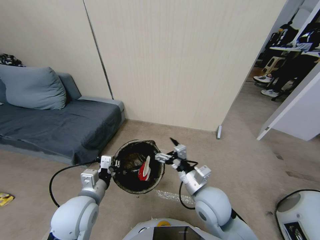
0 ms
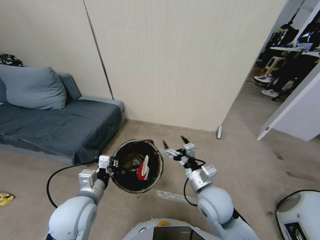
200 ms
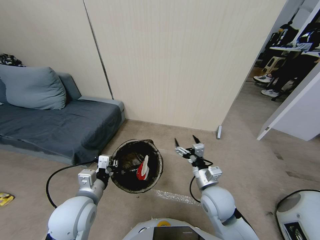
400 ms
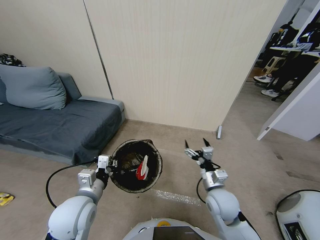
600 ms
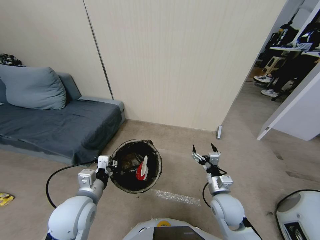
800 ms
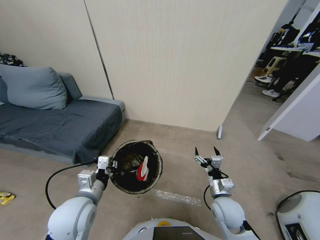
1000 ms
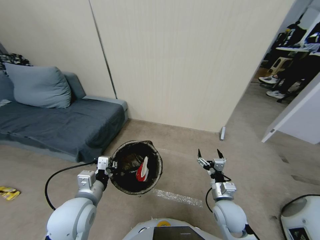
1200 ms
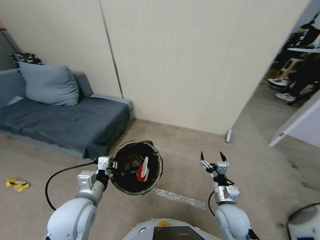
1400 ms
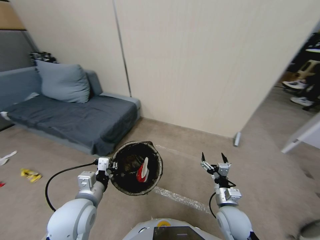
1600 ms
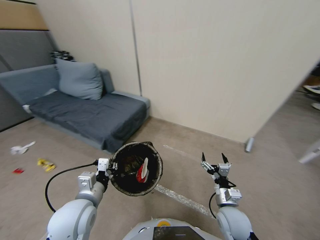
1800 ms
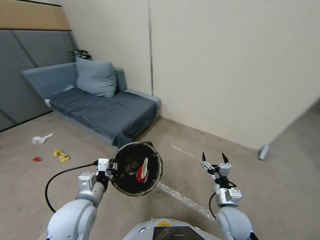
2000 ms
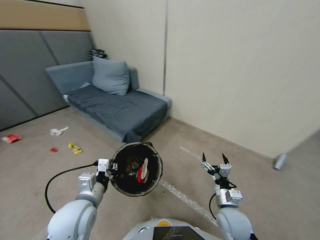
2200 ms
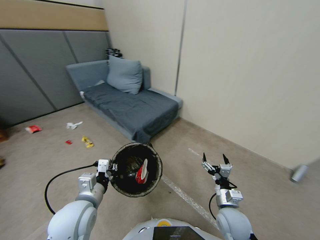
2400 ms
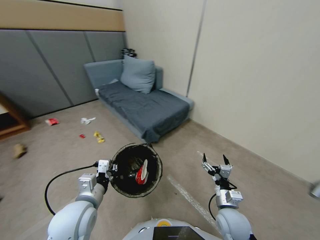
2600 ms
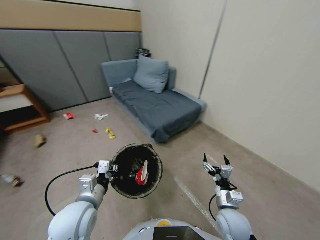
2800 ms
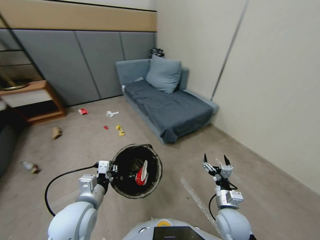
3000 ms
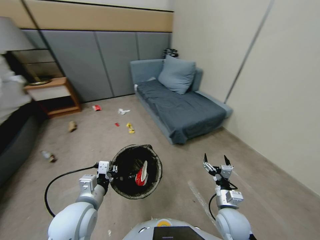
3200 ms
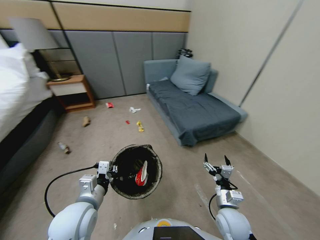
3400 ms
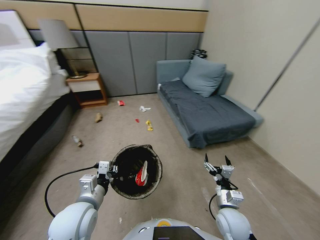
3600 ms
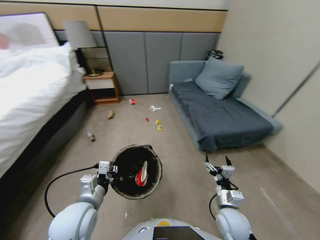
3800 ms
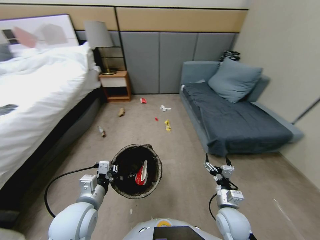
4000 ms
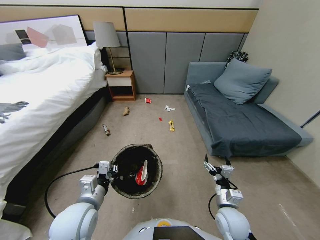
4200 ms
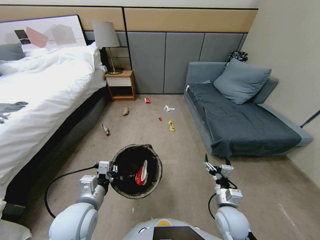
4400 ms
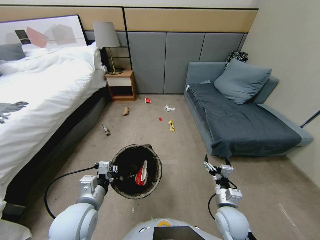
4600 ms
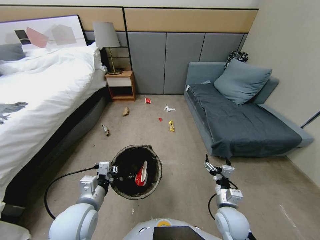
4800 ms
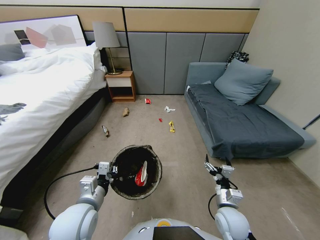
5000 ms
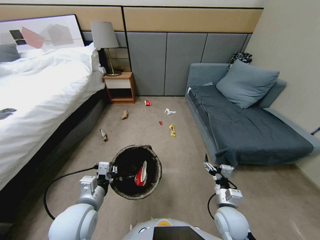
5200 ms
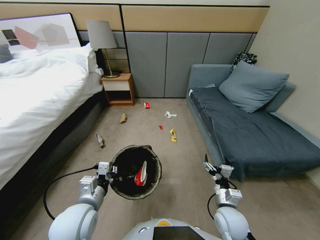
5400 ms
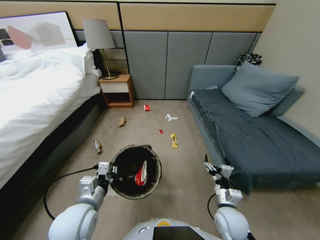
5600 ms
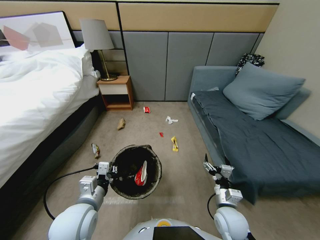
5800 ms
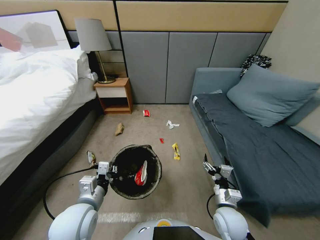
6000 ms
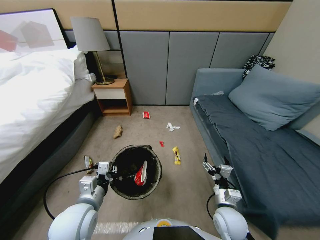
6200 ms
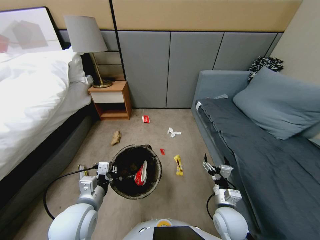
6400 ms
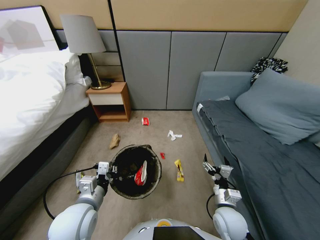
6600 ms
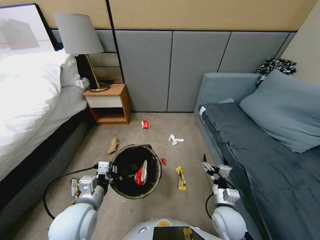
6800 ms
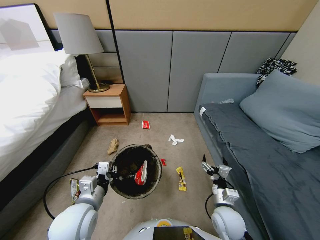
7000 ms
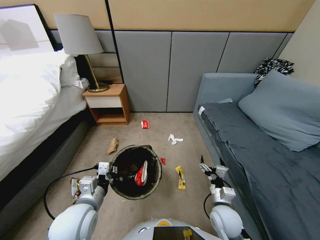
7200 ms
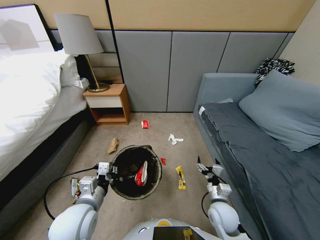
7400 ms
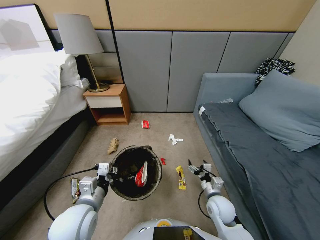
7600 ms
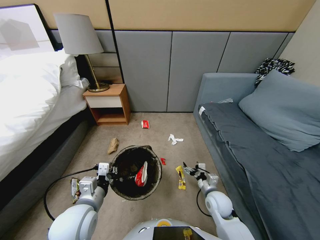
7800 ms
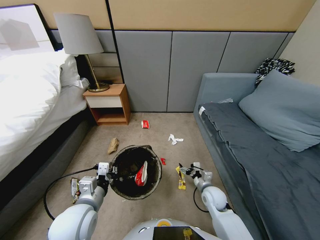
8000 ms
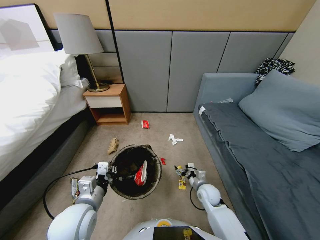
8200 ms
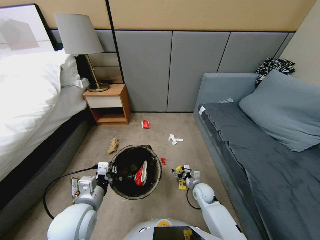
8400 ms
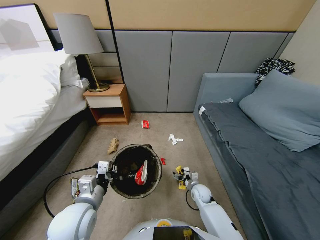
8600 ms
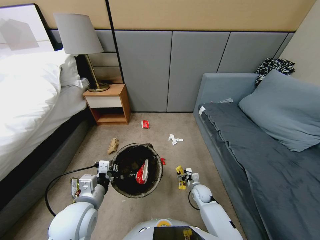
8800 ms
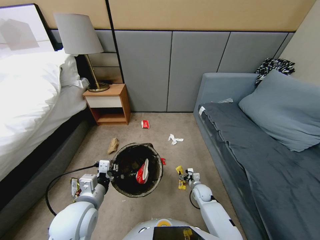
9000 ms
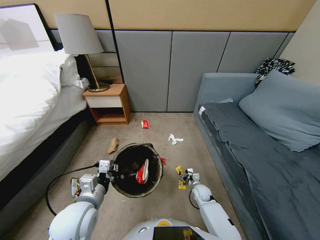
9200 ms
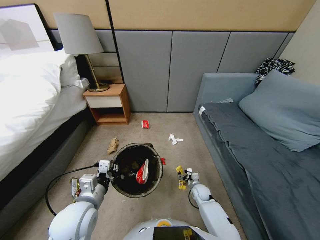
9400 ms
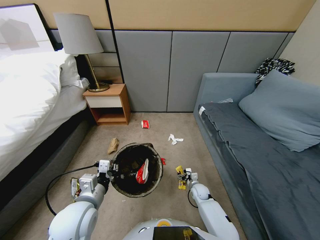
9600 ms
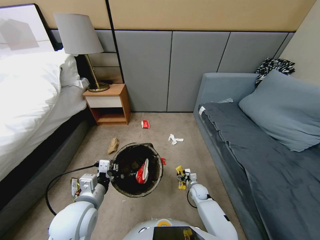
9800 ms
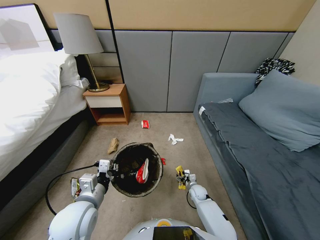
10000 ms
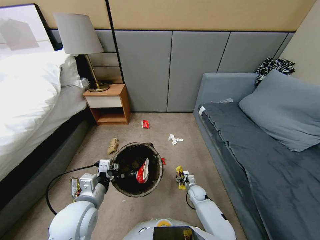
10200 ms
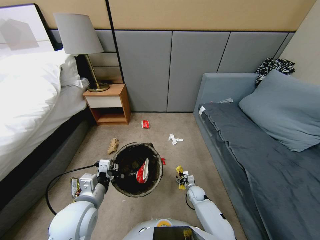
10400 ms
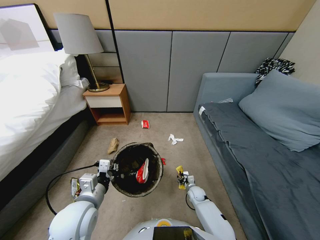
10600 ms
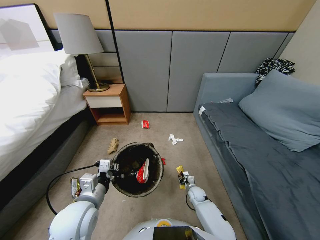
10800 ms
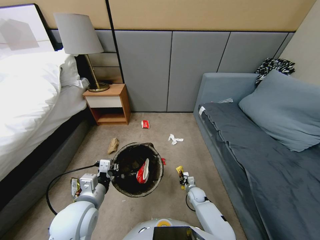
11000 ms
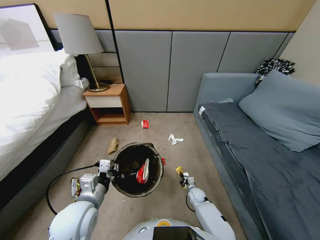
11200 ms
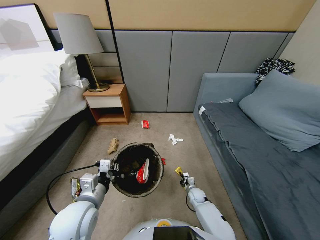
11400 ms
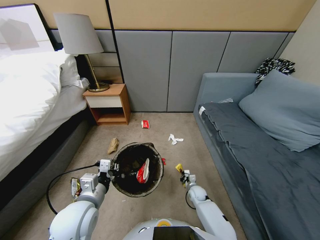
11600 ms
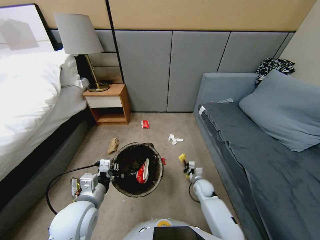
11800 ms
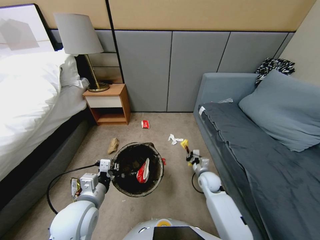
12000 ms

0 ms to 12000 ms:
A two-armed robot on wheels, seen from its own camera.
Task of the whole recording: Pick up the trash bin, then pick up the garbage from the floor and place it into the trash bin.
0 ms to 1600 ms: The right gripper is displaced downward and to the right by about 15 cm.
6000 ms to 7600 ms: The right gripper goes approximately 5 cm forward.
7600 ms to 9000 ms: The right gripper travels downward and forward by roughly 15 cm.
9000 ms to 10400 ms: There are only small adjustments of the grippers.
10400 ms to 12000 ms: The right gripper travels upward by roughly 20 cm, and closes up.

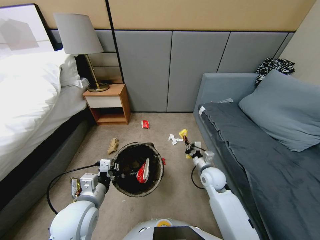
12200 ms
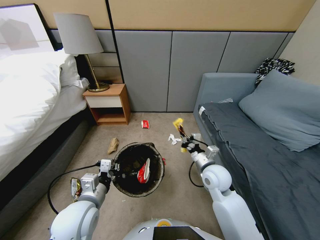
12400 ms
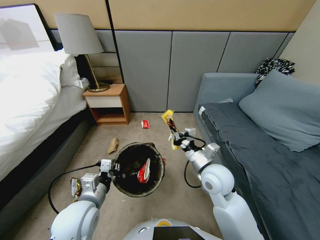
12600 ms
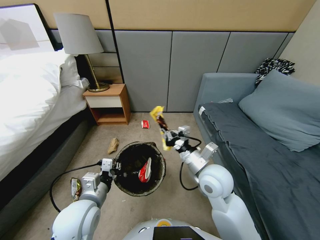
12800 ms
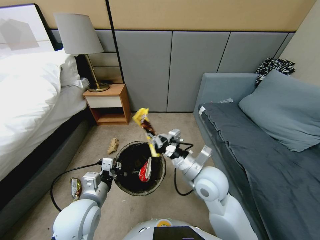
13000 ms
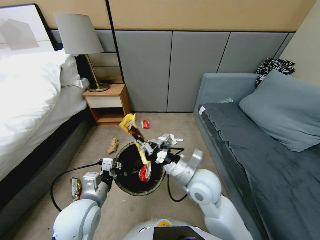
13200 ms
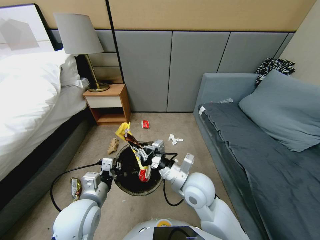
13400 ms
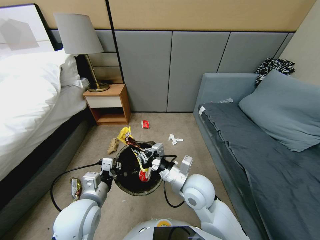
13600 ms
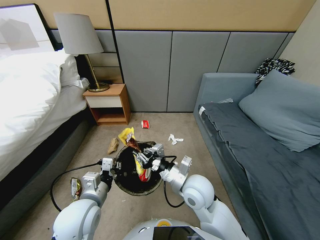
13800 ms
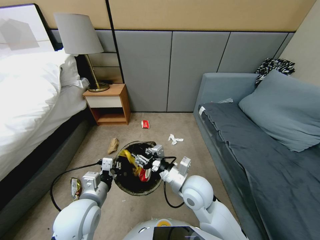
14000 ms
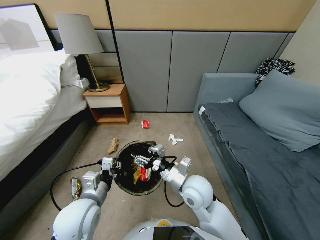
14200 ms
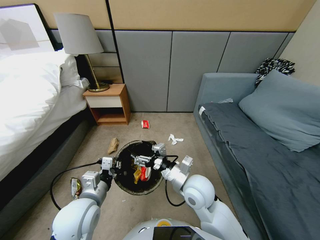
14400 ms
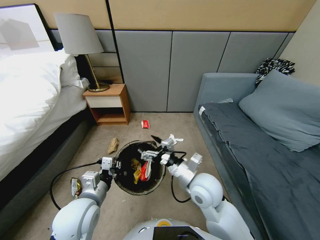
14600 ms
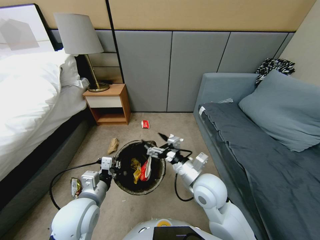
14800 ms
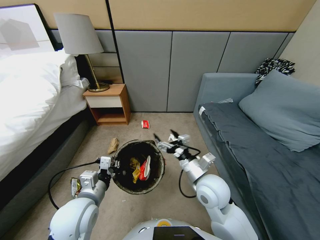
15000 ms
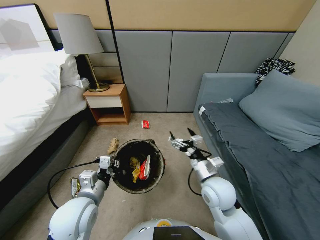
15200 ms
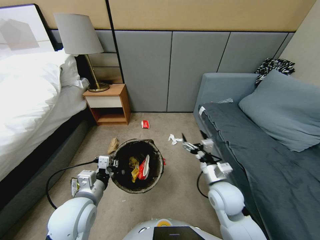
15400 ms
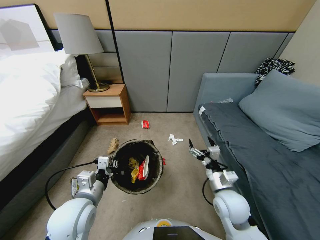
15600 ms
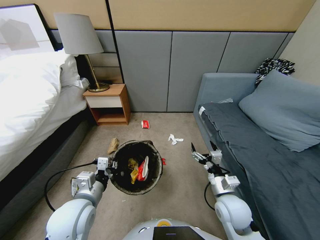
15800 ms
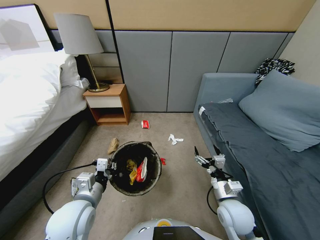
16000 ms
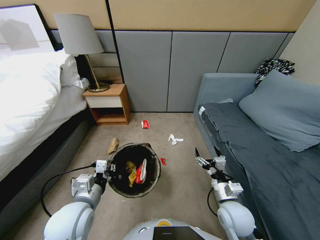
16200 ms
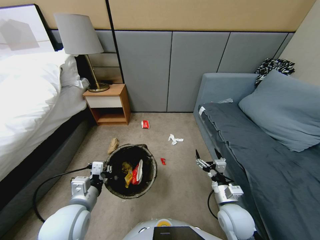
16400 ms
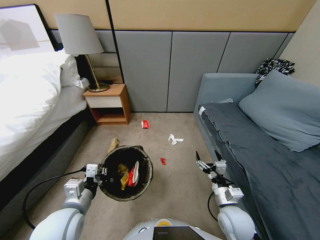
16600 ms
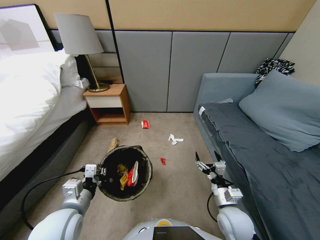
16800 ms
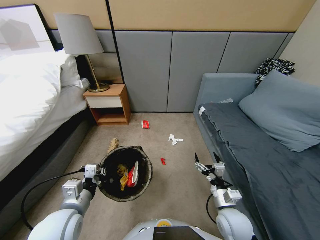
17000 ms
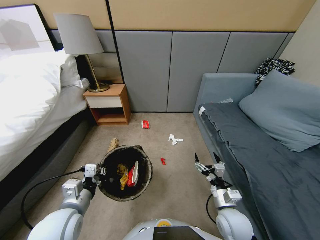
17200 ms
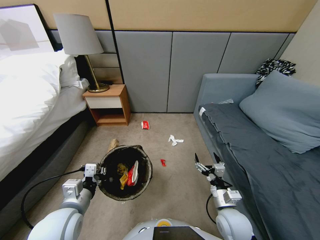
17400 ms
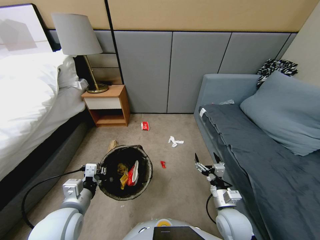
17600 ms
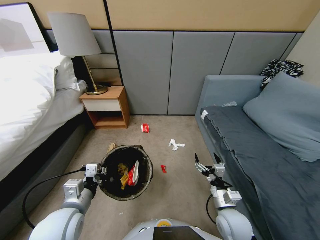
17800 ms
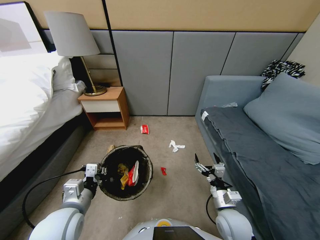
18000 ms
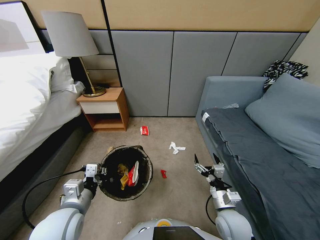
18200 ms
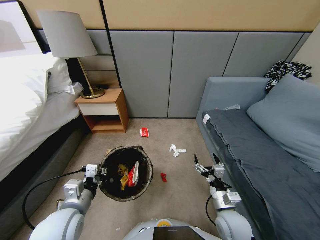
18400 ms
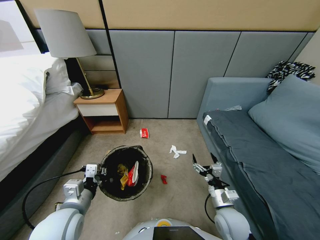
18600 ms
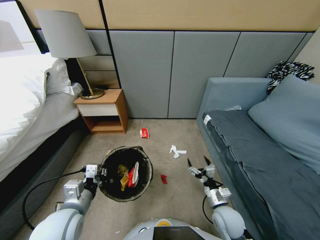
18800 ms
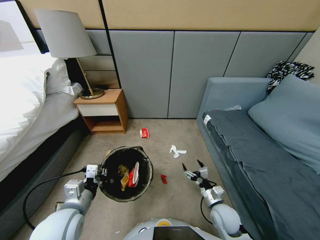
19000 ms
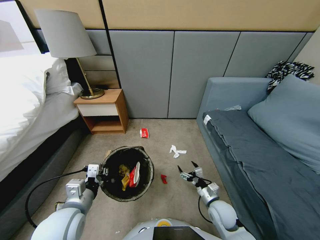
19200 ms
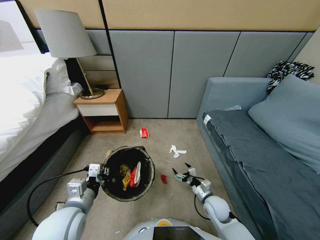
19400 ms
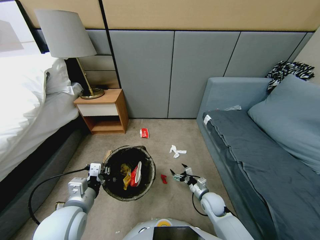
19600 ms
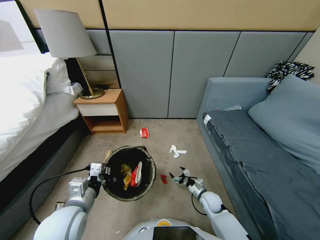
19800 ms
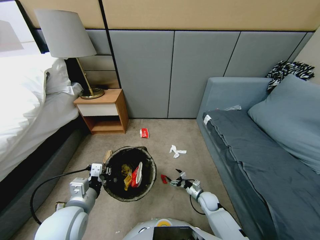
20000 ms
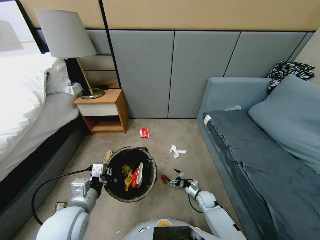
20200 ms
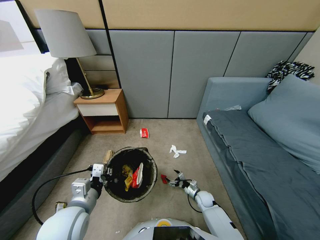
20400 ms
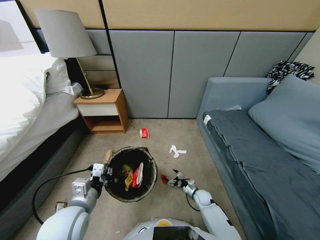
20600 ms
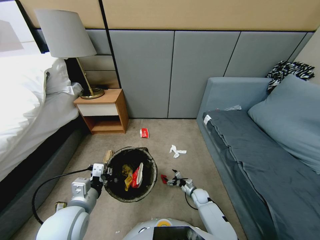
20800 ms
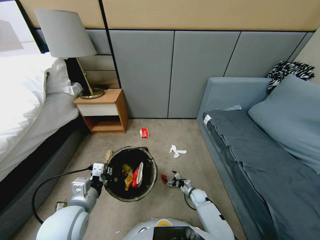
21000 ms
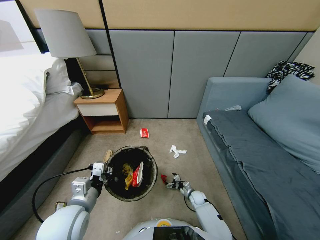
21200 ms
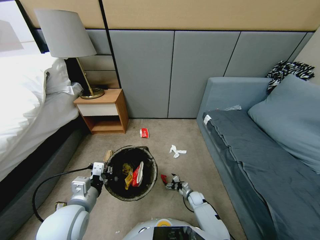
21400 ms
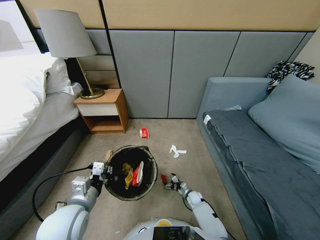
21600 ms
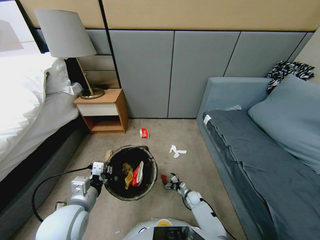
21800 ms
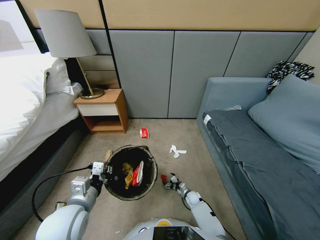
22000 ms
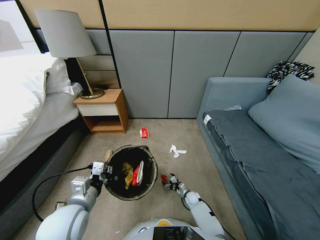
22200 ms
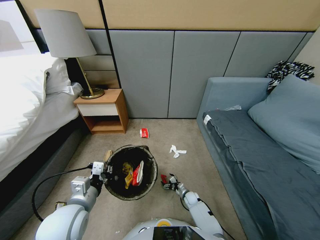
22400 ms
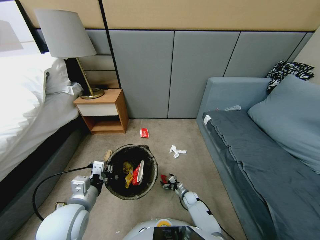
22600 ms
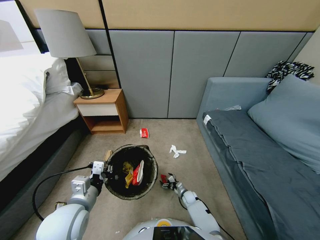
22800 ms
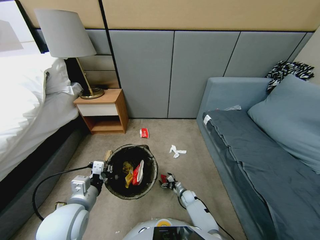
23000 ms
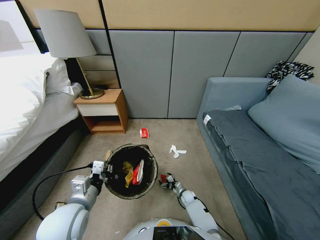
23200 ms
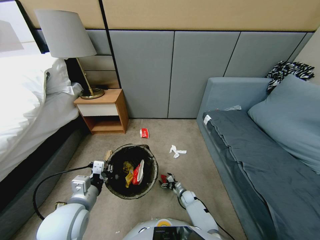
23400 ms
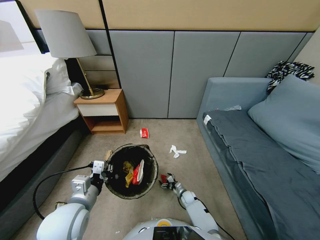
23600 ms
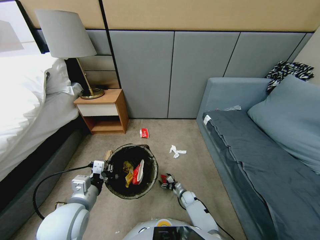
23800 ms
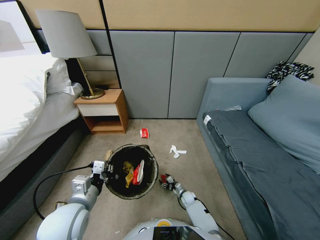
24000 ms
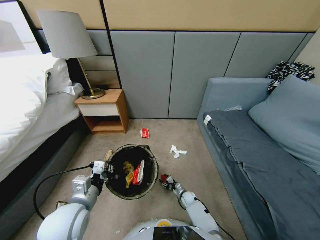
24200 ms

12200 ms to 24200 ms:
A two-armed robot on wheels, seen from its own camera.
Task of the whole recording: Pick up the trash bin, then pick up the garbage from the floor and place it into the trash bin.
12200 ms to 13800 ms: The right gripper heads to the left and backward, covering about 10 cm, and opens.
13800 ms to 15200 ms: The right gripper is displaced to the right by approximately 10 cm, and opens its fingers.
15200 ms to 16600 ms: The right gripper heads downward and backward, covering about 10 cm.
16600 ms to 18200 ms: Both grippers stay about where they are.
18200 ms to 19800 ms: The right gripper heads downward and forward, covering some 20 cm.
19800 ms to 21200 ms: The right gripper moves downward, roughly 10 cm.
21200 ms to 22600 ms: The grippers make only small movements.
22600 ms to 24200 ms: The right gripper closes up.
